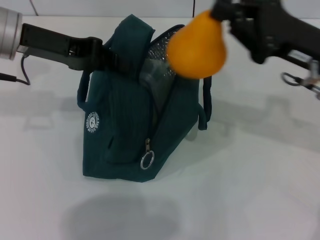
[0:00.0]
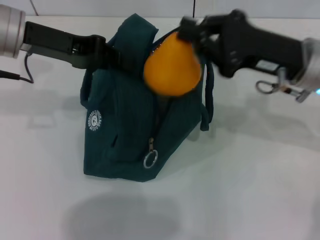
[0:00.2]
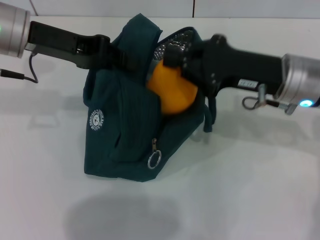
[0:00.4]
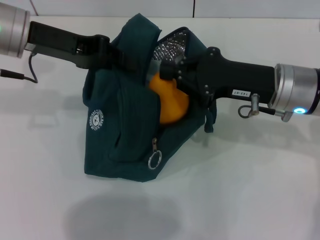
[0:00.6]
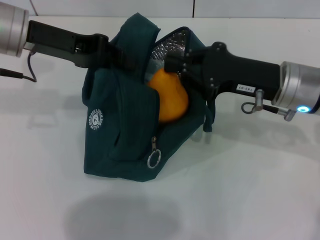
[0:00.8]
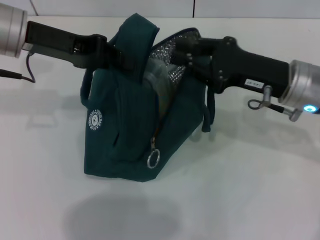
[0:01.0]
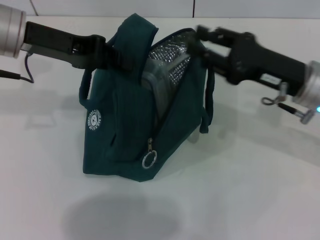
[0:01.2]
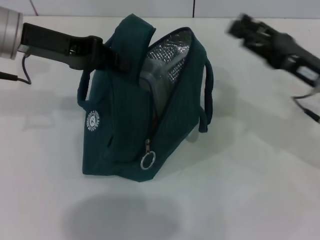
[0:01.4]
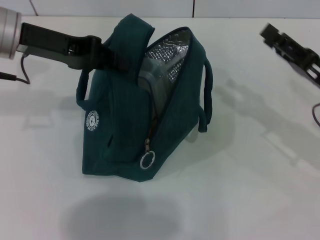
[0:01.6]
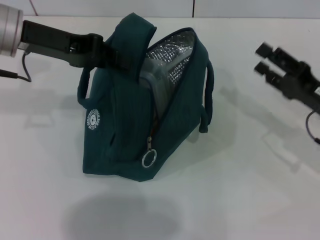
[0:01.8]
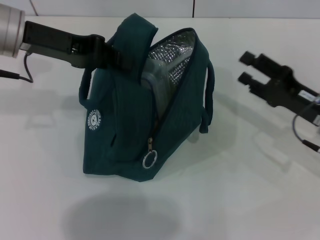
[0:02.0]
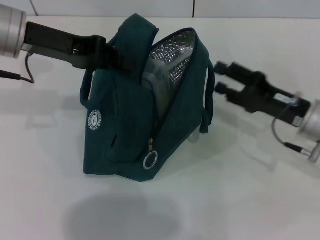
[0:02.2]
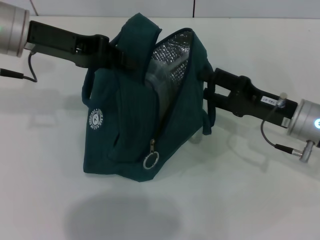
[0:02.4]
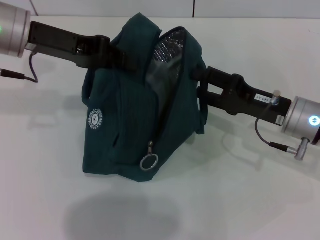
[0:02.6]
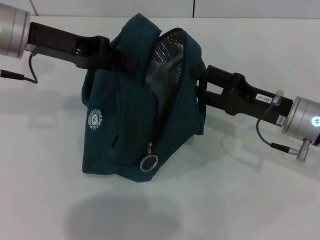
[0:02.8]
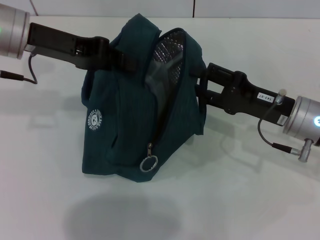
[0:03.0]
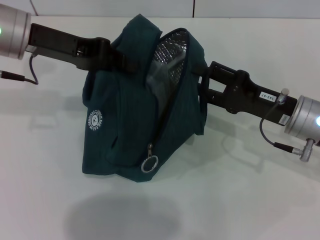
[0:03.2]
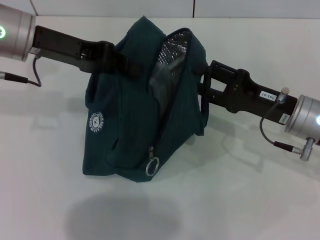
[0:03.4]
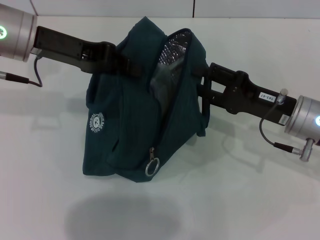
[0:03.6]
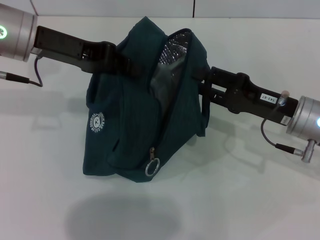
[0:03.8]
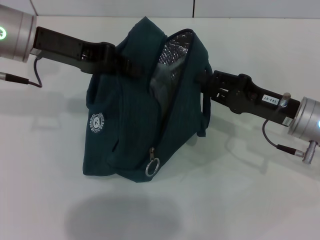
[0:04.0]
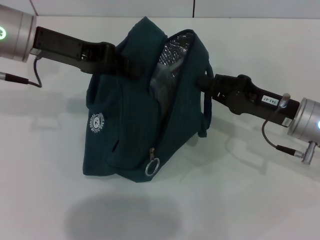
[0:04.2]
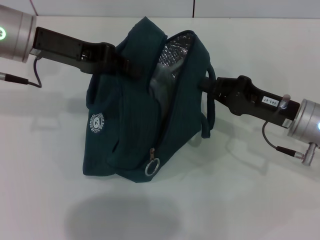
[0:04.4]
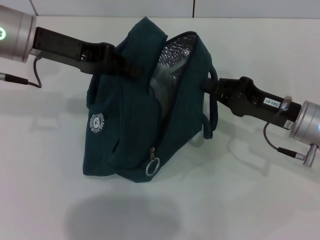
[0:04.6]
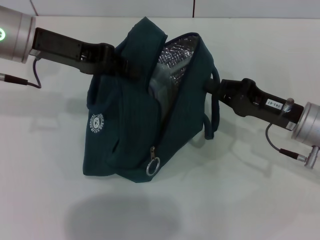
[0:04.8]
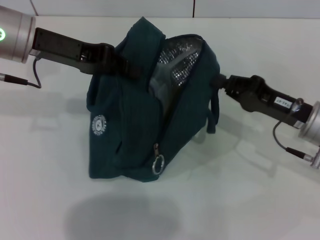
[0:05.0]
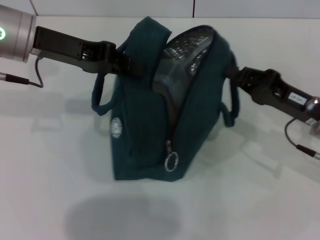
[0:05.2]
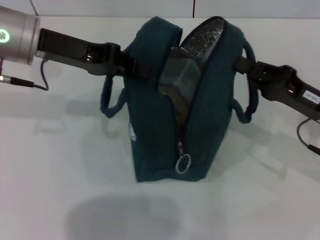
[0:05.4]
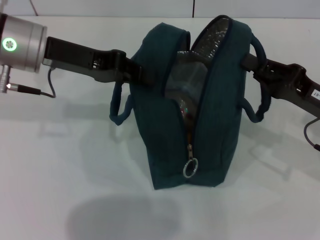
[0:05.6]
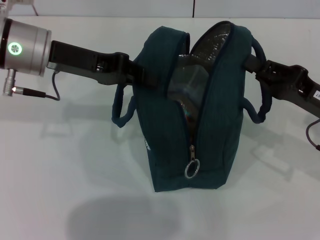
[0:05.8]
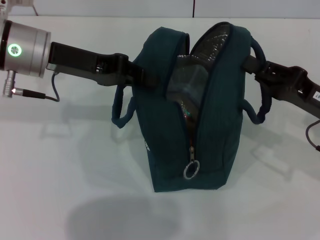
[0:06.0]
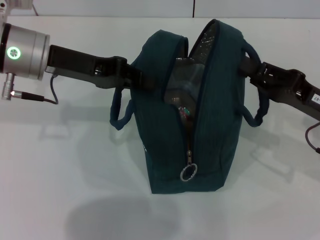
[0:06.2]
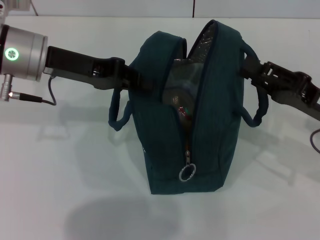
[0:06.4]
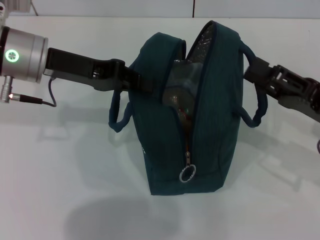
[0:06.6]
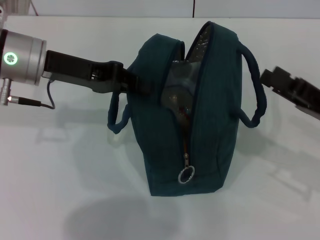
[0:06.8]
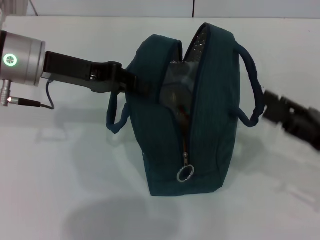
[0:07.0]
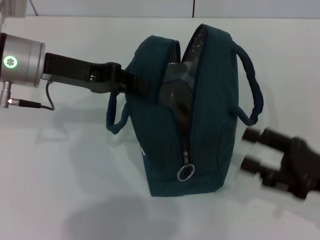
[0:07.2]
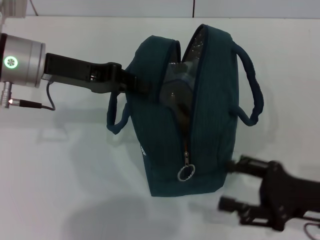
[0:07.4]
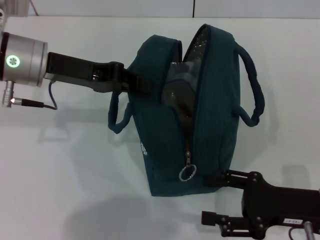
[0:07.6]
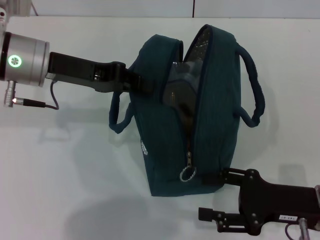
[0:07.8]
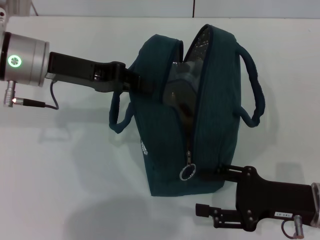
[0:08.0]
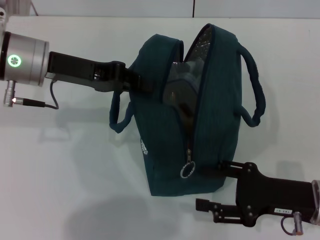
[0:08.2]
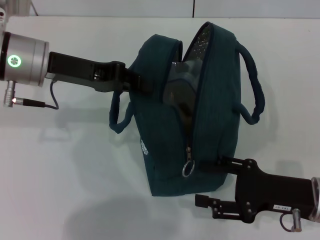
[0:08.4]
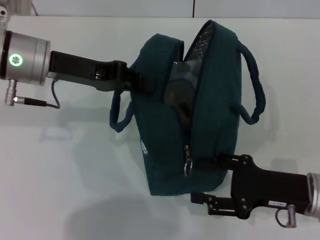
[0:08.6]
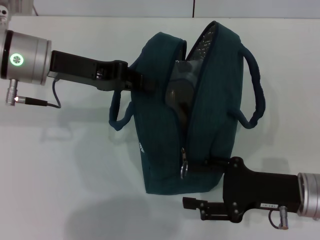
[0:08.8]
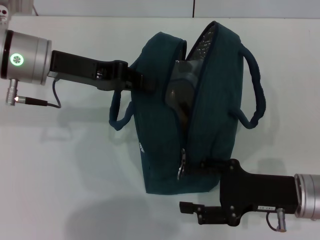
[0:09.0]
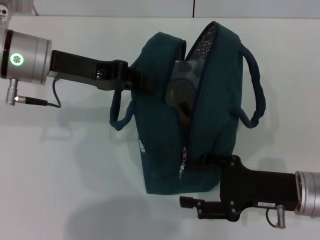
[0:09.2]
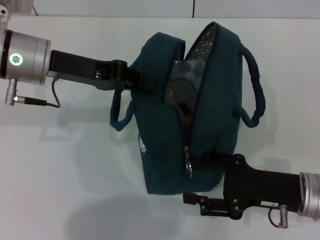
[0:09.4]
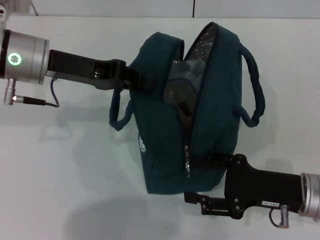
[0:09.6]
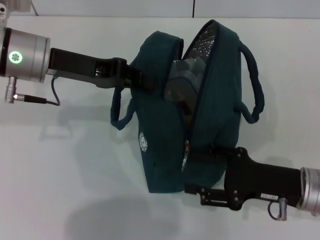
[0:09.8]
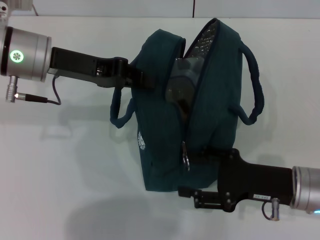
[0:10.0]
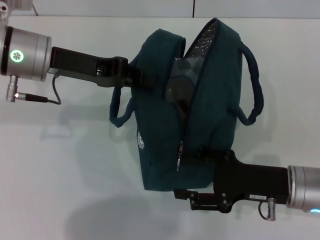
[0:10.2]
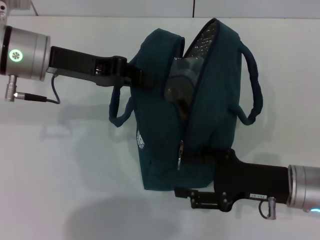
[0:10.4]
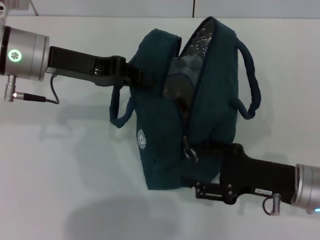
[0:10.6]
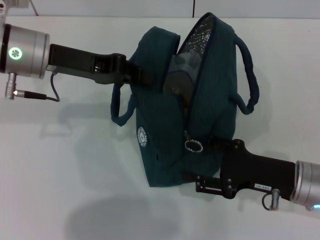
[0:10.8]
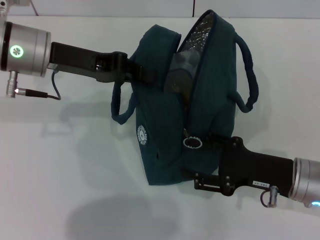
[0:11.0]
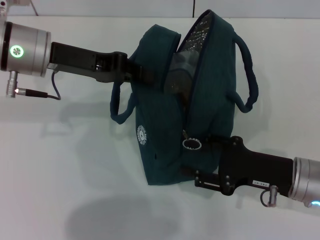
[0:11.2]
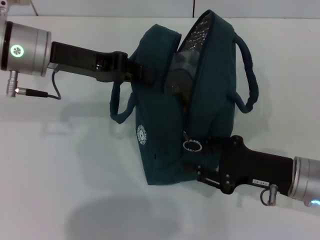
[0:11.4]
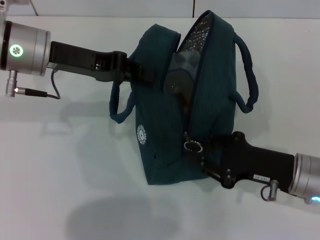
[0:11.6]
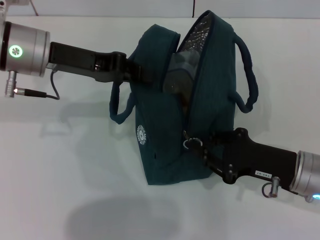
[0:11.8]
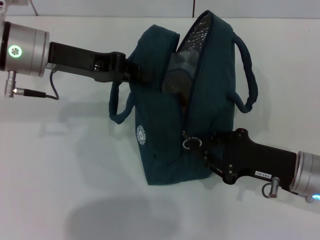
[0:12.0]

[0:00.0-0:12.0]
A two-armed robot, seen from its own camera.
Step, 0:01.0 to 0:06.4: Hold the lunch bag with your right hand.
0:00.0 to 0:01.6: The right gripper heads downward and to the right, covering some 10 cm, and opens up.
0:01.6 to 0:03.0: The right gripper goes approximately 5 cm to the left.
0:03.0 to 0:04.4: The right gripper closes up.
0:04.4 to 0:06.0: The right gripper shifts by about 5 cm.
0:06.0 to 0:07.6: The right gripper shifts roughly 10 cm backward, and opens its fingers.
0:07.6 to 0:10.4: There are only small adjustments of the grippers.
0:10.4 to 0:12.0: The right gripper closes its fingers.

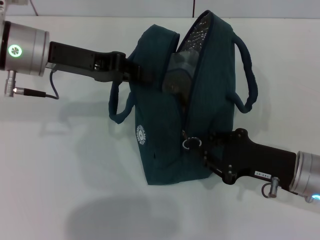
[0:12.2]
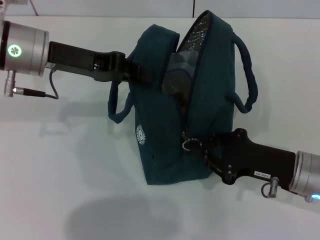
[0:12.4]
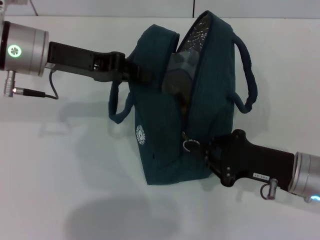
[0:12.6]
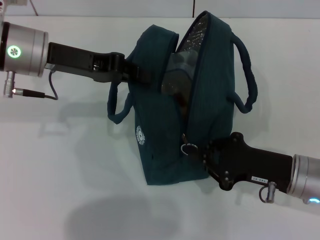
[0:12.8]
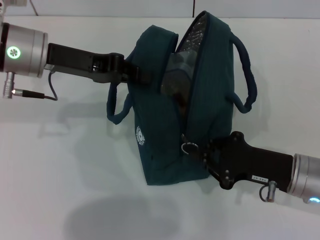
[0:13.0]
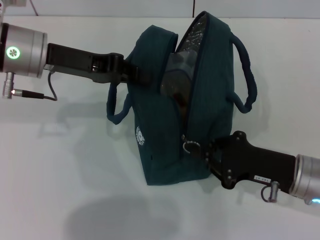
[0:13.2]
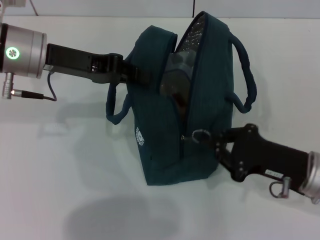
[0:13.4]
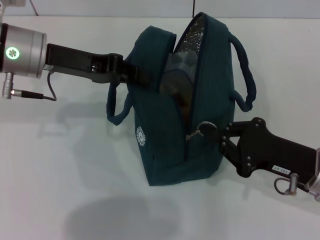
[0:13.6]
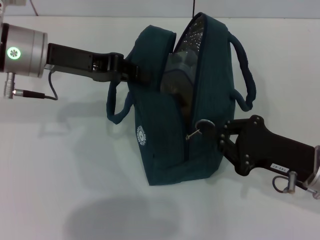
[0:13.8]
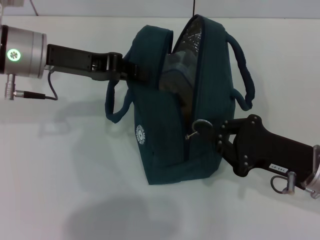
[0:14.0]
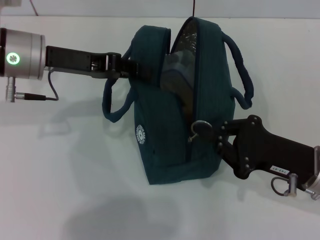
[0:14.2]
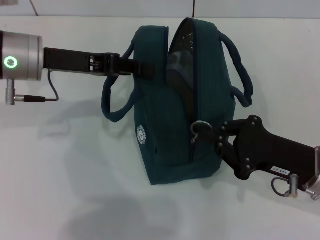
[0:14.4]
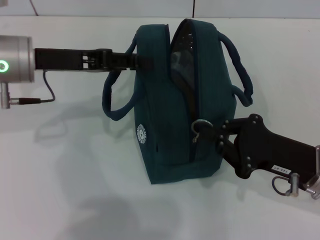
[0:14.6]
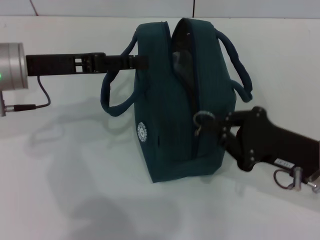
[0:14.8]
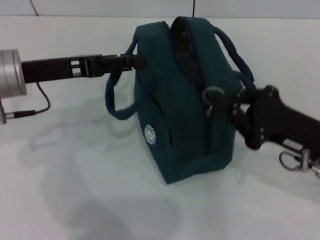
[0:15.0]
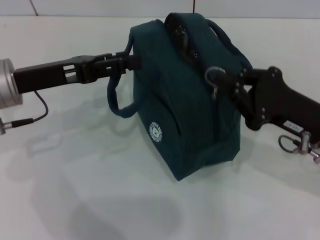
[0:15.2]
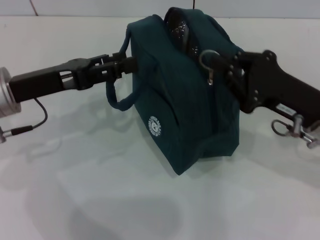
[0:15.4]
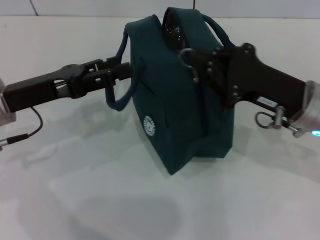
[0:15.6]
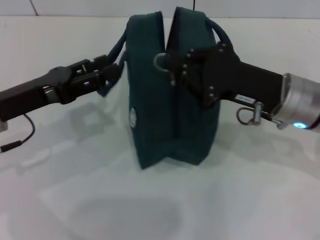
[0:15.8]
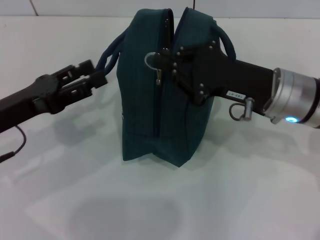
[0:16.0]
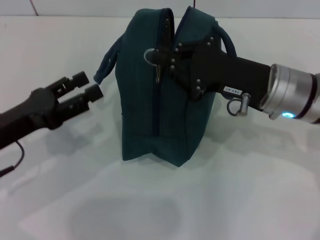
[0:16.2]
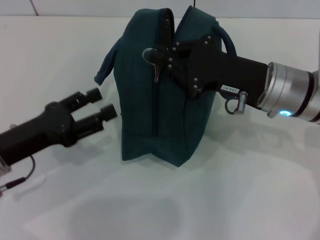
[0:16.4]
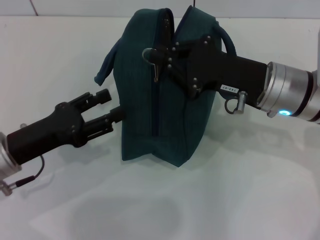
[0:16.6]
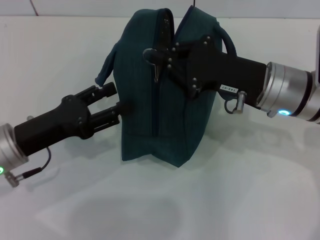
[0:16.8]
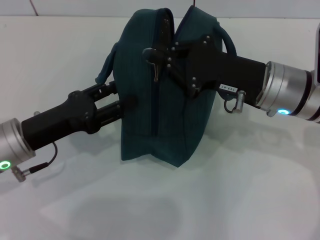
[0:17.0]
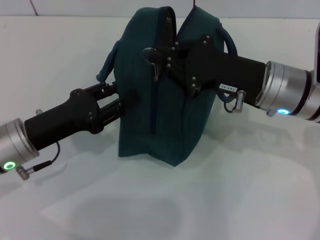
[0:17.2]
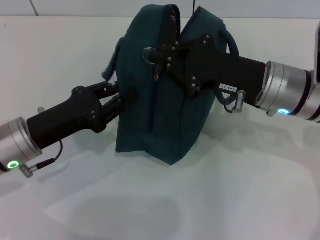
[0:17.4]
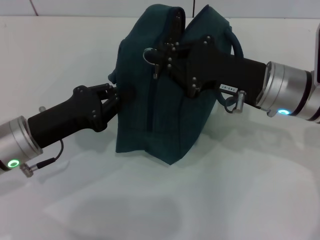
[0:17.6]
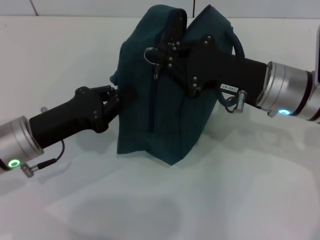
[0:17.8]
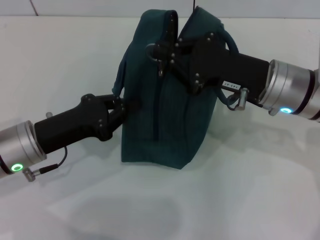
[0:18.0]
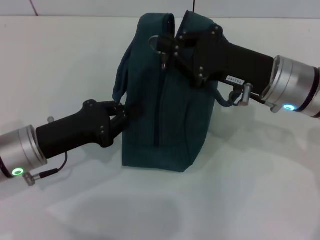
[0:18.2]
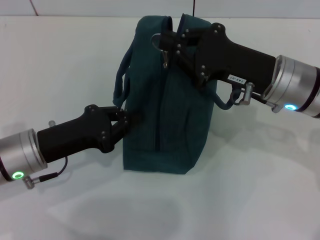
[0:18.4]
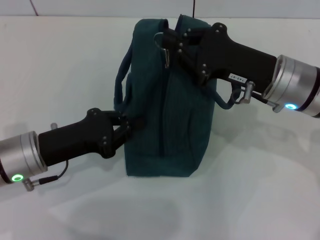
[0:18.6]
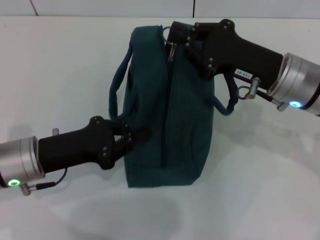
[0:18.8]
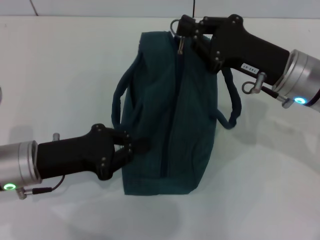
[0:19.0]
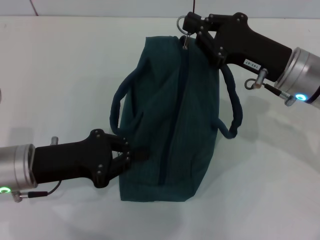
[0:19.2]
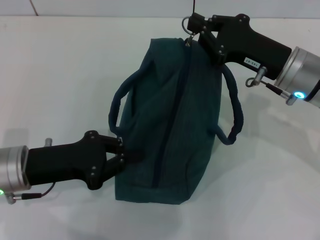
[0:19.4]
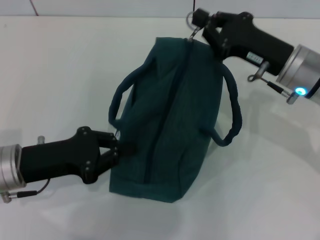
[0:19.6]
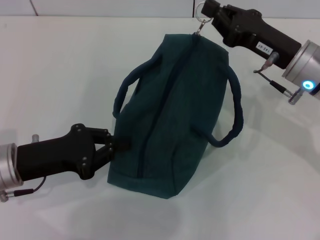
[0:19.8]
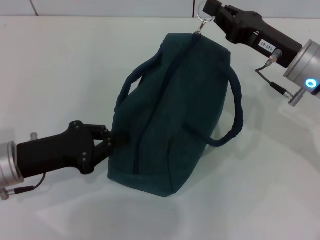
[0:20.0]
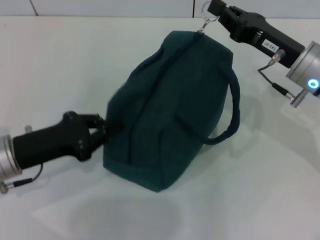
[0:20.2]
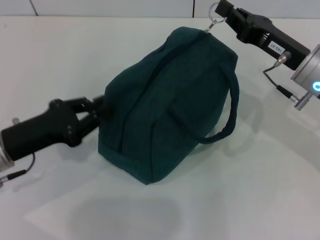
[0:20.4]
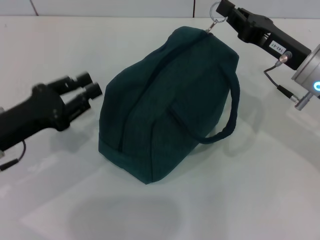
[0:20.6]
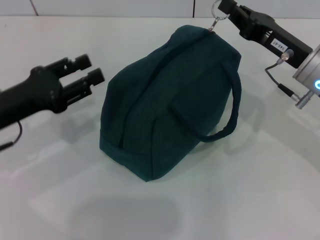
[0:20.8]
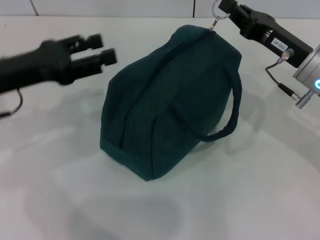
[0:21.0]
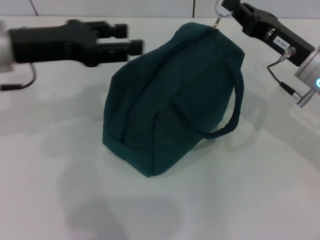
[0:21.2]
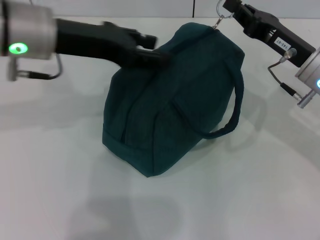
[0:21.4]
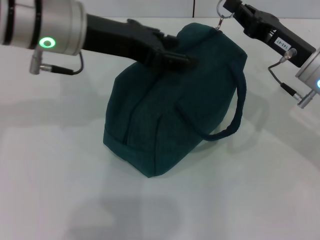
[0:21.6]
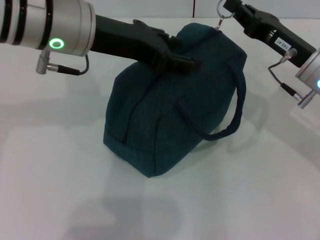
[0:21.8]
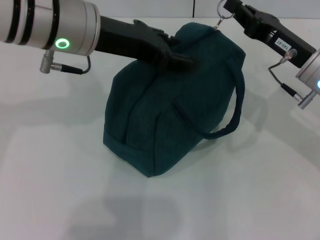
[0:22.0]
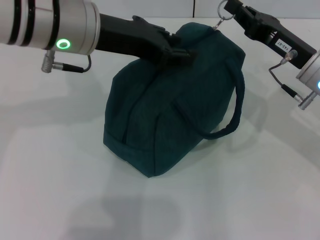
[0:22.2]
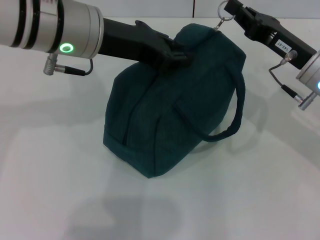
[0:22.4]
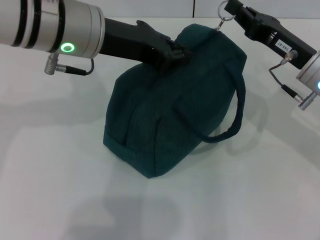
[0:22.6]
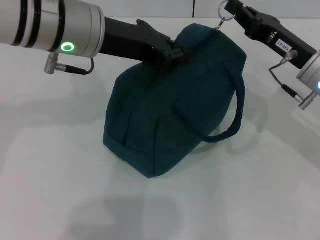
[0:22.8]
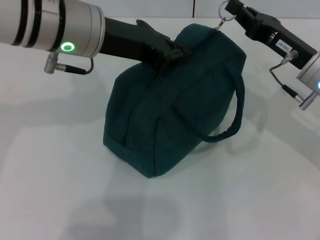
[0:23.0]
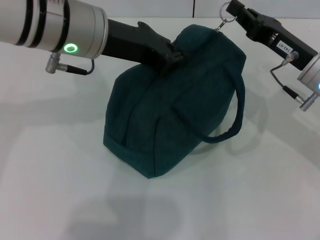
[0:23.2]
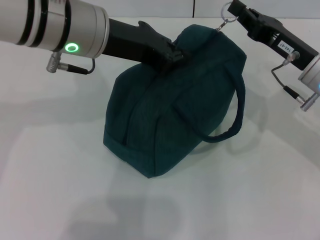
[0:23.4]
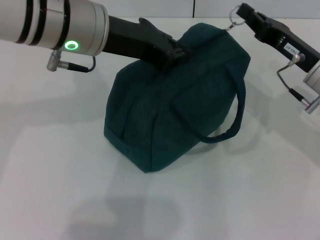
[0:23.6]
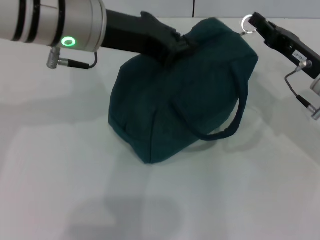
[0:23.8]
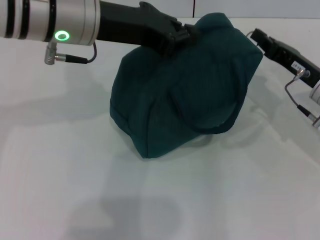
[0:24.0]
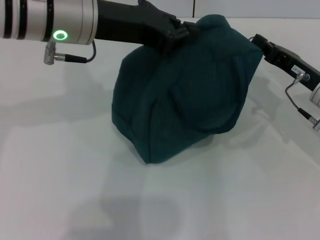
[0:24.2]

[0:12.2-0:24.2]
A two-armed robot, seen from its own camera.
Step, 0:12.2 to 0:15.6: Hold the lunch bag with your left hand.
0:12.2 to 0:13.8: The grippers move only a little.
0:13.8 to 0:15.2: The left gripper goes approximately 5 cm backward, and opens up.
0:15.2 to 0:16.6: The left gripper travels downward and backward by approximately 10 cm; the right gripper is displaced to the left and forward by approximately 10 cm.
0:16.6 to 0:18.2: The left gripper closes.
0:19.8 to 0:21.2: The left gripper shifts roughly 15 cm upward and forward, and opens its fingers.
0:21.2 to 0:22.6: The left gripper shifts roughly 10 cm to the right, and closes up.
0:22.6 to 0:24.2: The right gripper ends up approximately 5 cm from where it was.
